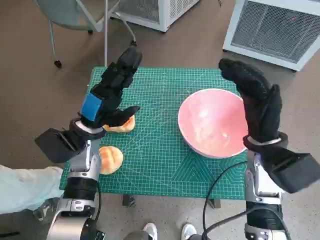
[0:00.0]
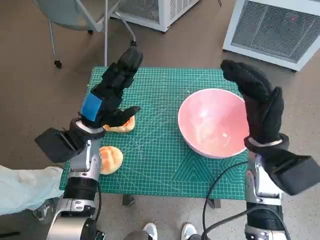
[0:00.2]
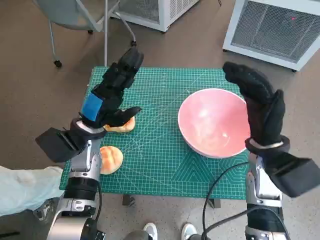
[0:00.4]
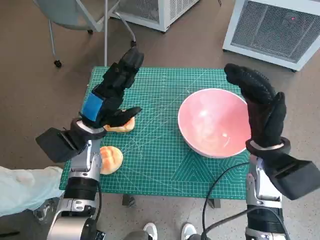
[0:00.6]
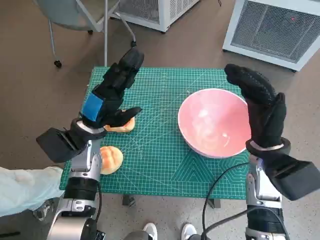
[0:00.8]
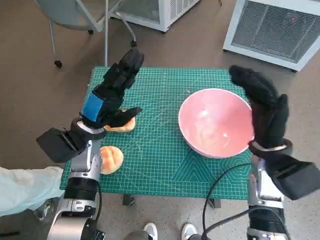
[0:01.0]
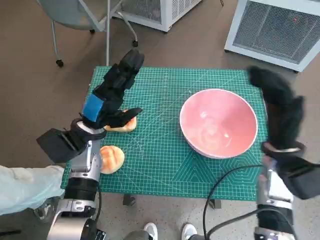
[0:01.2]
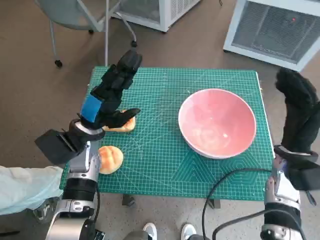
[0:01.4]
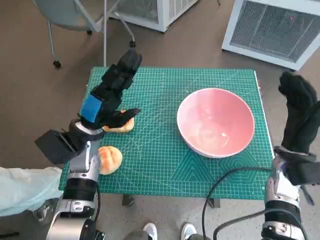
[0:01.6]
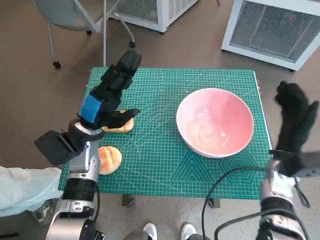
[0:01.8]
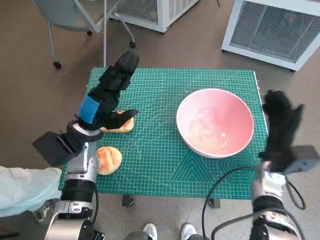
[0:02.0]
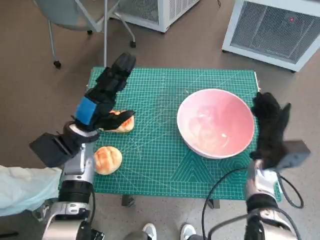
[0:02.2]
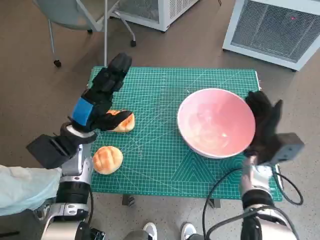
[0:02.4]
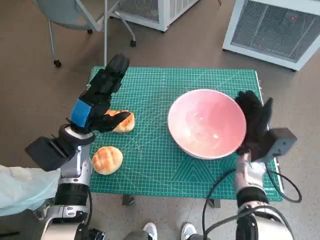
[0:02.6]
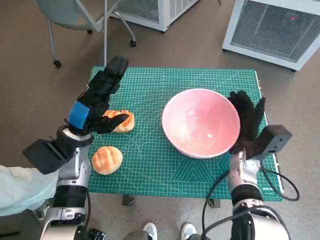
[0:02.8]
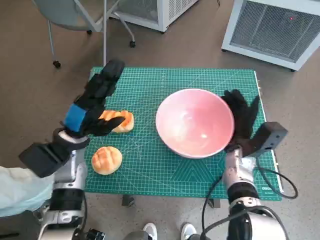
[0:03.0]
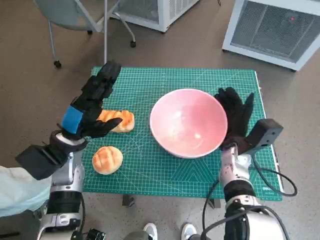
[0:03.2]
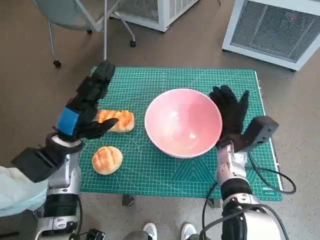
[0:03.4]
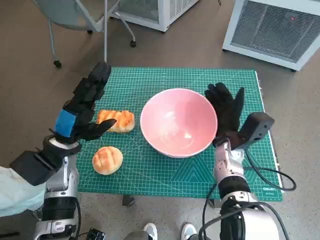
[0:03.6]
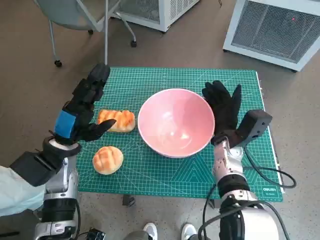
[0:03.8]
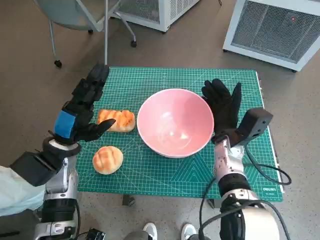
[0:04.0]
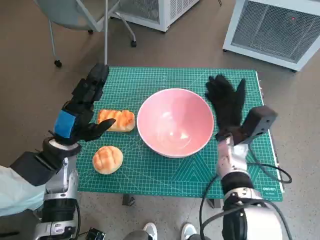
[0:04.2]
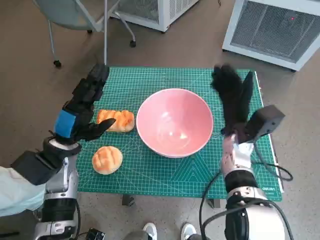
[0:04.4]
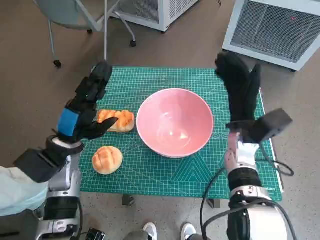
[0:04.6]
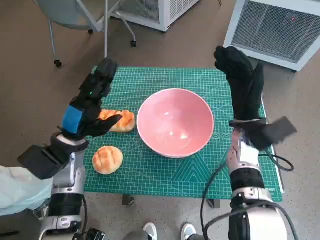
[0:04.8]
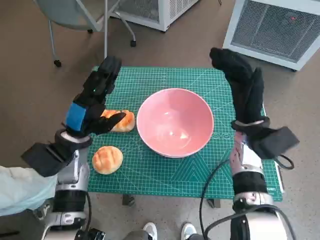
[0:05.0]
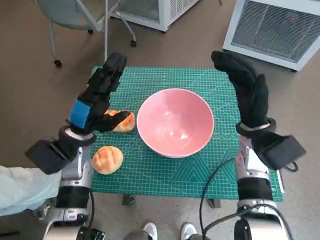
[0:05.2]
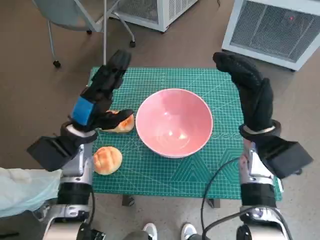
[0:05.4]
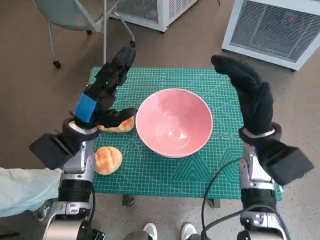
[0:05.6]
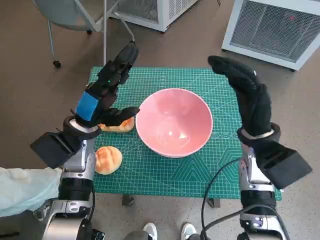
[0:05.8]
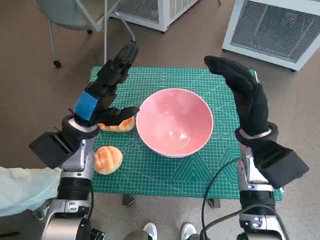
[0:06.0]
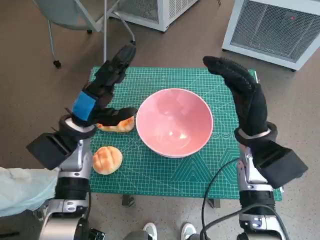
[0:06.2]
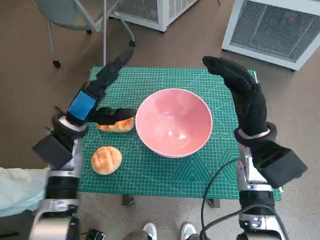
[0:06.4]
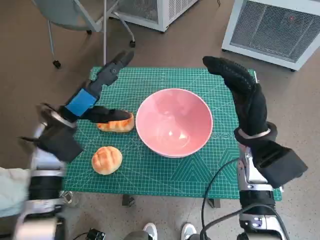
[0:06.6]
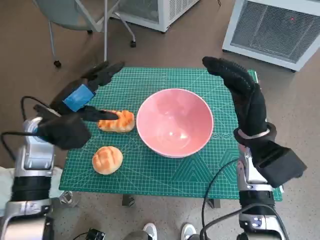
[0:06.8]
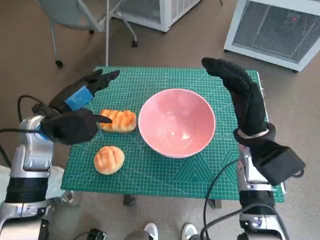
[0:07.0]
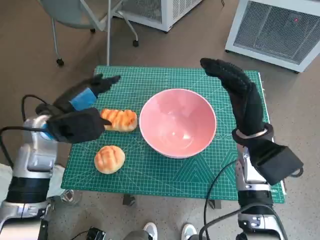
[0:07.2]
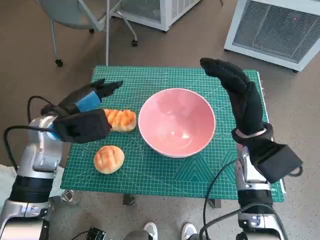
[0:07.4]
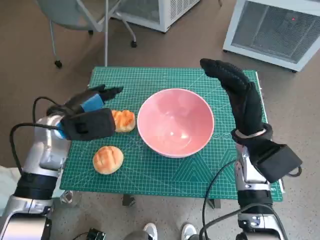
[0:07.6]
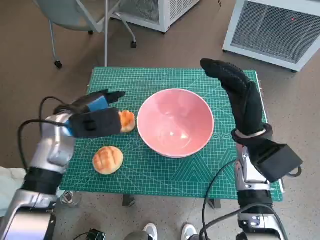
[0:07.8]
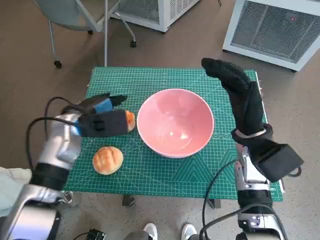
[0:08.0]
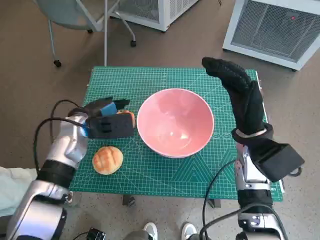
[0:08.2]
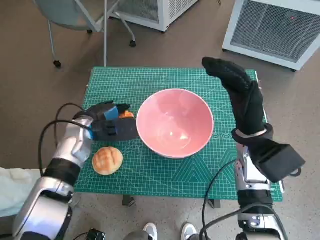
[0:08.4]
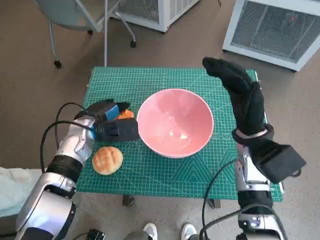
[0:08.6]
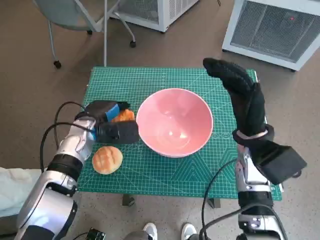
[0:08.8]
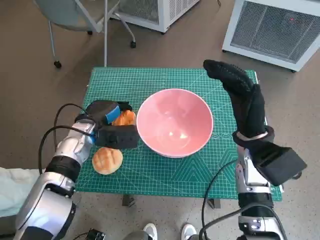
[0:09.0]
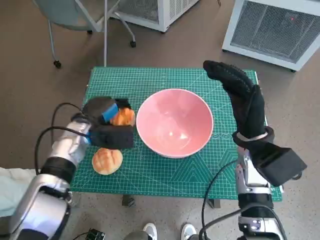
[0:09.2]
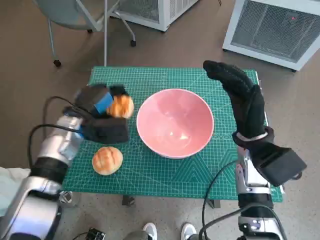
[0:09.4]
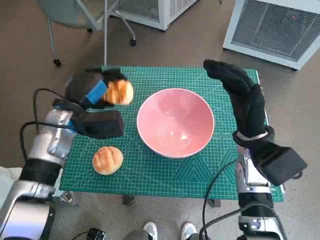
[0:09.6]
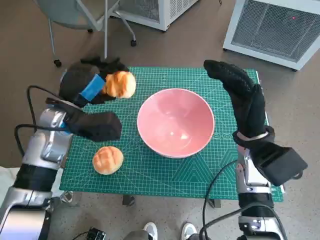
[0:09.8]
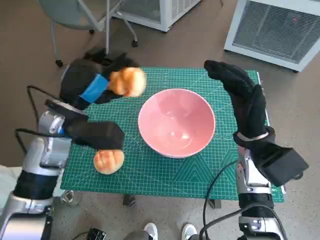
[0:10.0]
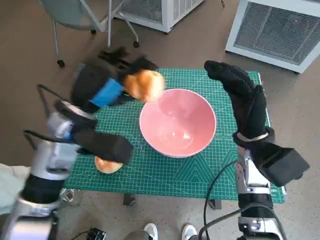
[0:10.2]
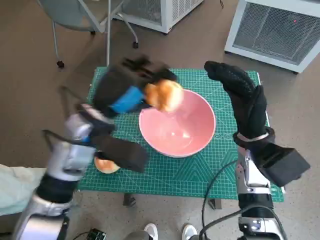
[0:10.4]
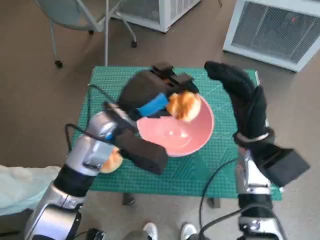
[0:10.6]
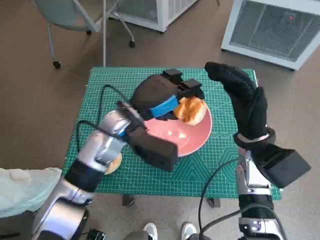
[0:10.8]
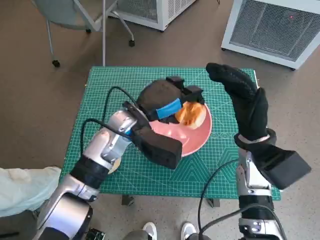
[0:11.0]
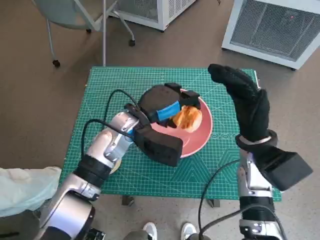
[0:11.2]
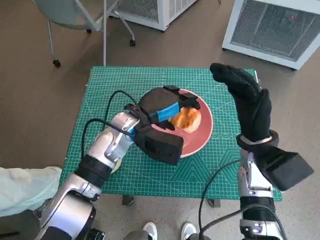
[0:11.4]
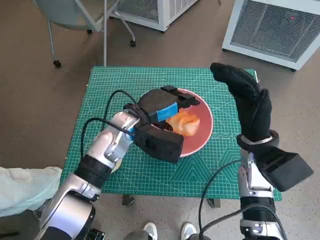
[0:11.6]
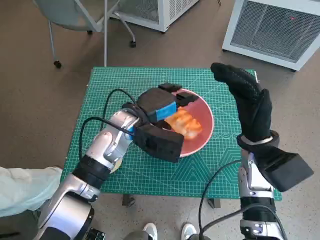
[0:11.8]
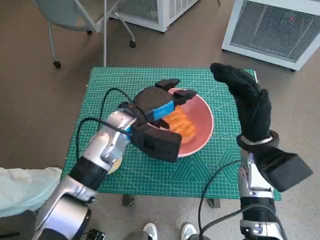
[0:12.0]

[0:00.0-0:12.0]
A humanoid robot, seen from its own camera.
Task of the whole recording: Push the bowl into the center of the table and put the bread into the bowl.
Step, 0:00.0 to 0:04.2: Move the pink bowl to the center of table with right hand.
Step, 0:04.4 to 0:08.8: Grasp the long bread with left hand.
Step, 0:09.0 to 0:11.6: Place the long bread in pink bowl with left hand.
0:01.6 to 0:03.0: The right hand goes some 10 cm to the left and downward.
0:04.4 to 0:06.0: The left hand moves about 5 cm, while the right hand heads upward, covering some 5 cm.
0:07.6 to 0:09.0: The left hand is displaced downward by some 5 cm.
0:09.0 to 0:10.4: The left hand heads upward and to the right, covering roughly 10 cm.
0:10.4 to 0:12.0: The left hand ends up about 10 cm from where it was.

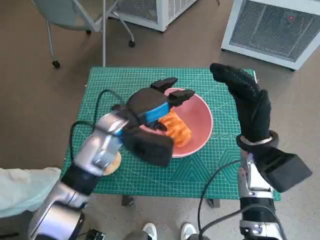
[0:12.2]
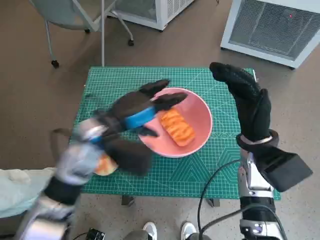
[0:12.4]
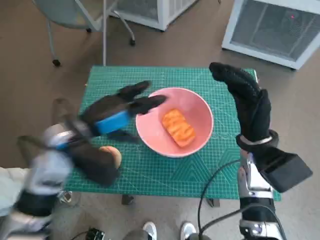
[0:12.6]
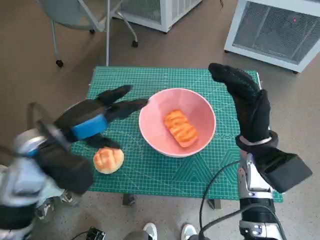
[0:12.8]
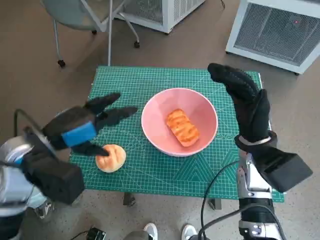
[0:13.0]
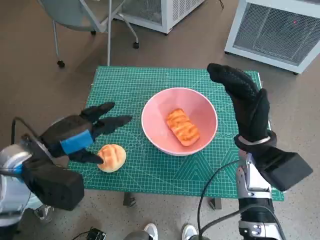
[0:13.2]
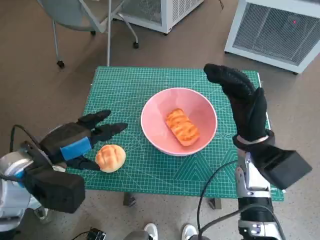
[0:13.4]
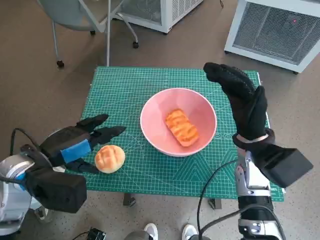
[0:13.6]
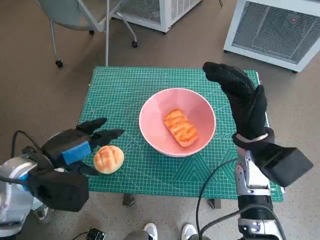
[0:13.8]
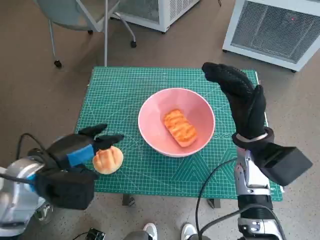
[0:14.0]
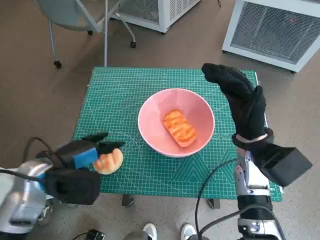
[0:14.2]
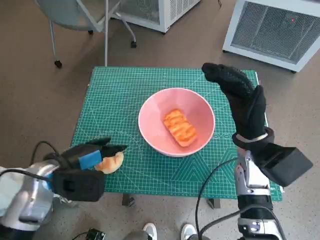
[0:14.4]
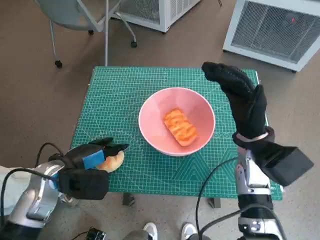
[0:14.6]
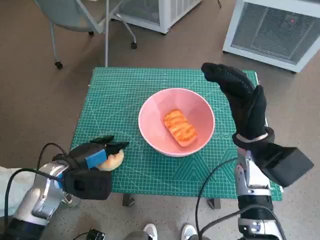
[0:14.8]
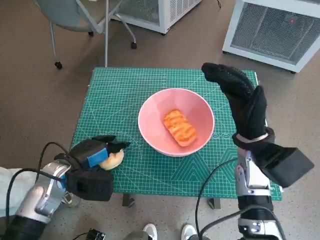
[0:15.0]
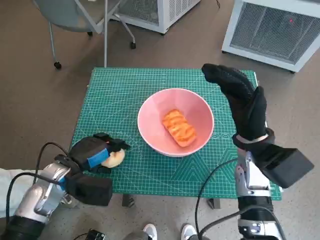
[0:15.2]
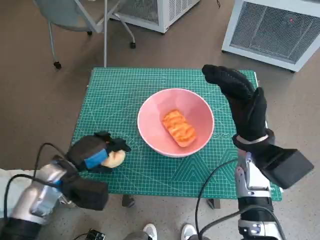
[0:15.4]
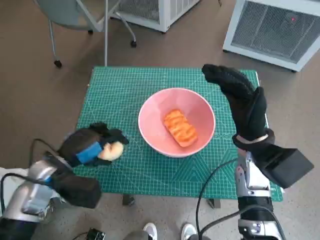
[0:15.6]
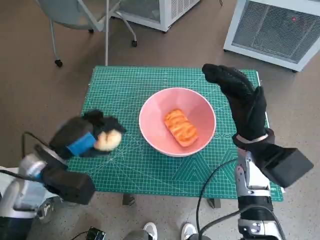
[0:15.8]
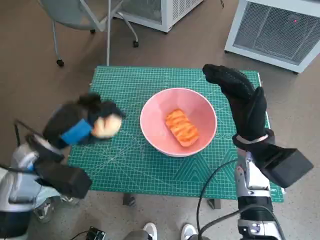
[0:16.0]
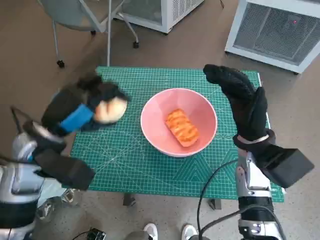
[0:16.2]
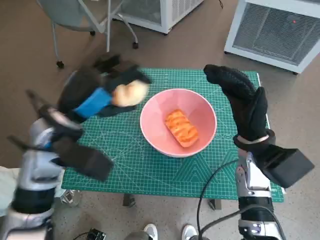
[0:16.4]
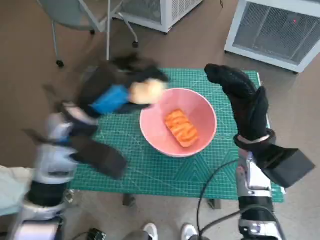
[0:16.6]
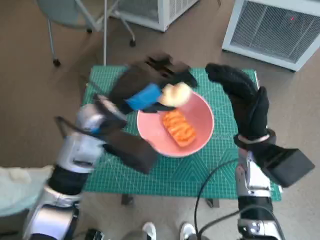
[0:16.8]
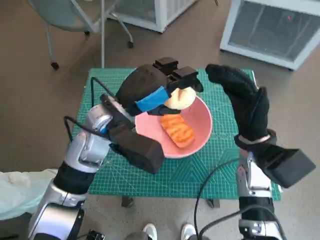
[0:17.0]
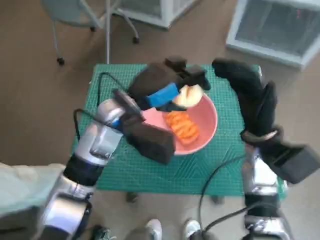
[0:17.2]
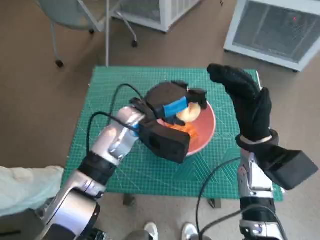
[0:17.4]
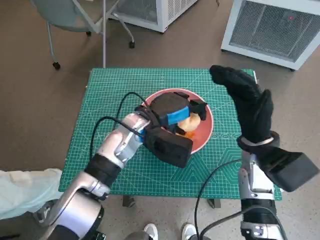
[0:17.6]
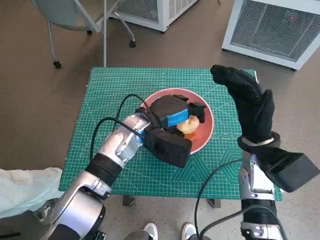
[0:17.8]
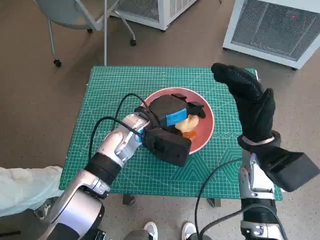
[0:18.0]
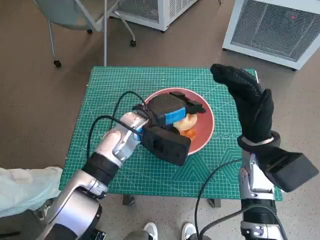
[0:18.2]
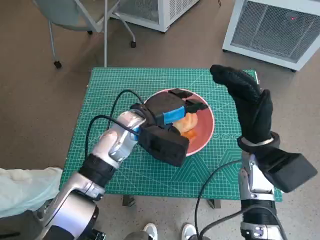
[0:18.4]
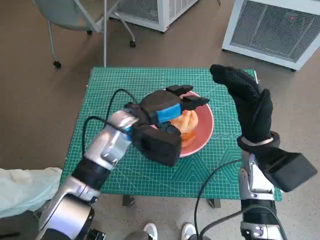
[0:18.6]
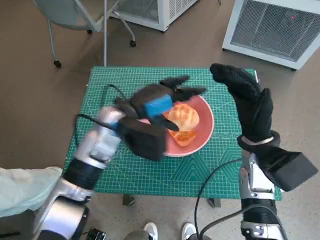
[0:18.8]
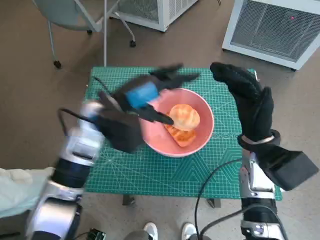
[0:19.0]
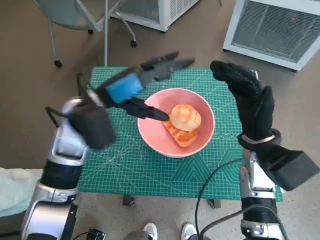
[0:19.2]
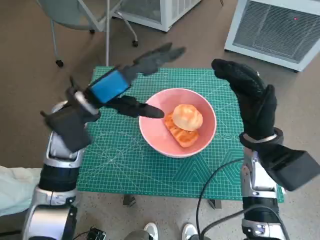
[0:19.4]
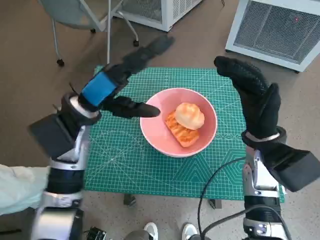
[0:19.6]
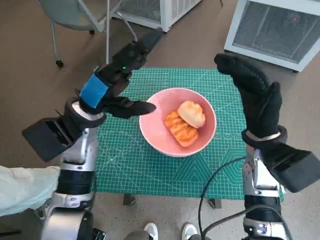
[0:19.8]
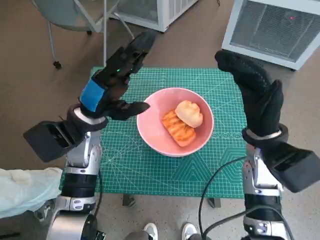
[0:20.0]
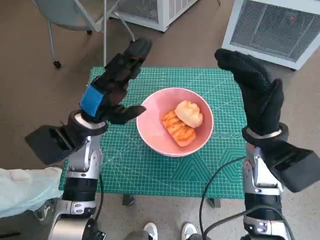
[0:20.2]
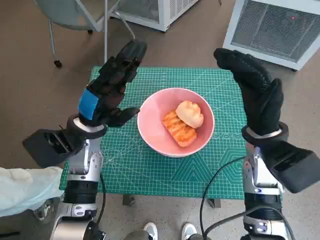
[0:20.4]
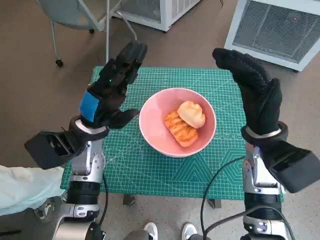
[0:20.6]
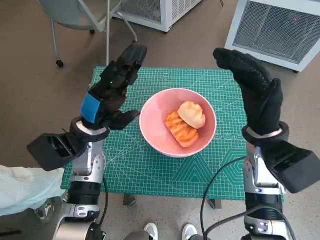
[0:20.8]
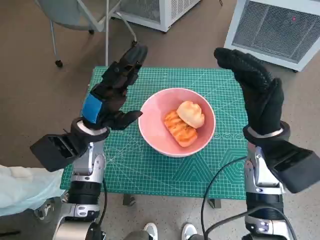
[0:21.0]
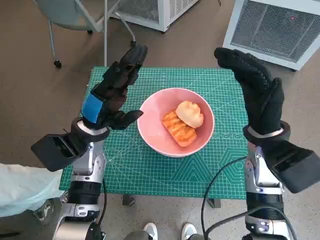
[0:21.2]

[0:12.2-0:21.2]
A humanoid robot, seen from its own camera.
Task of the whole recording: Push the bowl into the center of the table and put the bread into the bowl.
Step, 0:12.2 to 0:15.0: Grasp the round bread with left hand.
Step, 0:15.2 to 0:18.4: Place the round bread in pink bowl with left hand.
0:12.2 to 0:13.8: The left hand is displaced to the left and backward by roughly 15 cm.
0:13.8 to 0:15.2: The left hand goes about 10 cm downward.
0:15.2 to 0:16.6: The left hand is displaced upward and to the right by about 15 cm.
0:16.6 to 0:18.2: The left hand heads to the right, downward and forward, covering some 15 cm.
0:18.2 to 0:19.8: The left hand shifts some 10 cm to the left and upward.
0:19.8 to 0:21.2: The left hand travels downward by some 5 cm.

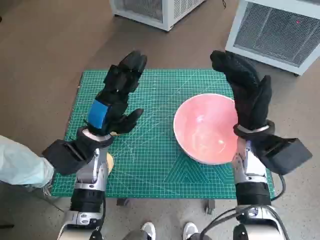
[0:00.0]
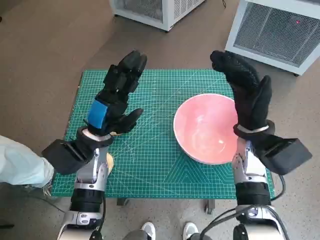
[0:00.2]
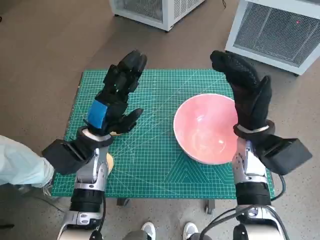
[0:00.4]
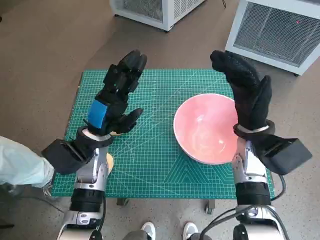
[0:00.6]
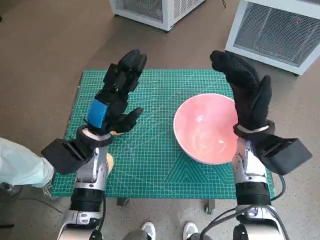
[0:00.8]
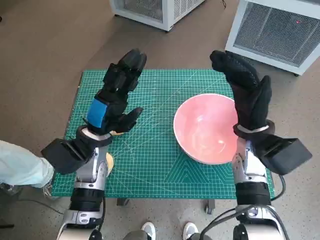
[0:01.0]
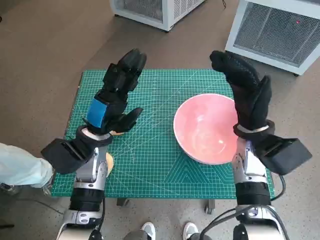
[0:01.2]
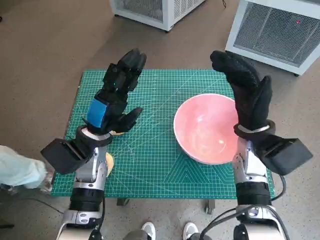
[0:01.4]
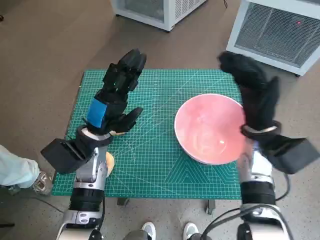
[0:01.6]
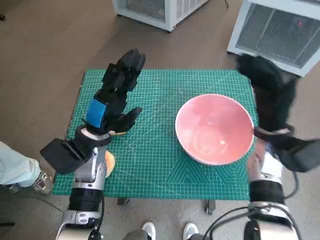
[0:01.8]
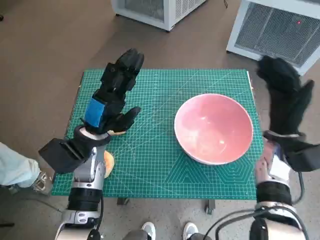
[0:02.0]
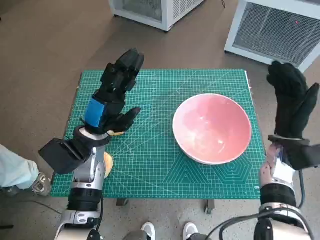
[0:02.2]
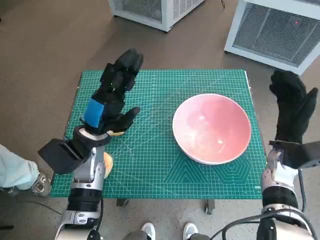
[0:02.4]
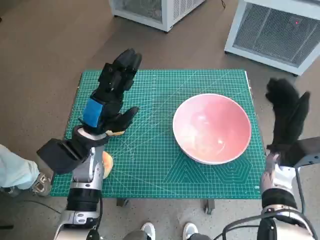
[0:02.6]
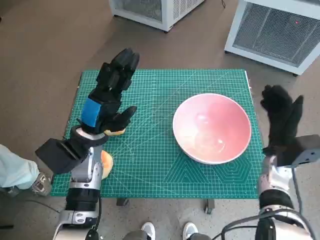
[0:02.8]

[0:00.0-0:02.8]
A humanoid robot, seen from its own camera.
Task of the whole recording: Push the bowl into the center of the table and put the bread into the bowl.
0:01.4 to 0:02.8: The right hand travels downward and to the right by roughly 10 cm.
